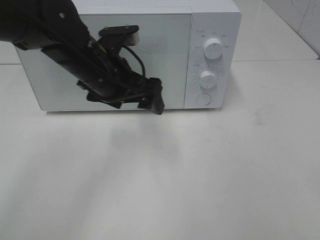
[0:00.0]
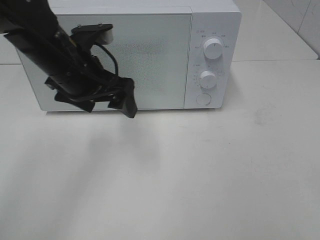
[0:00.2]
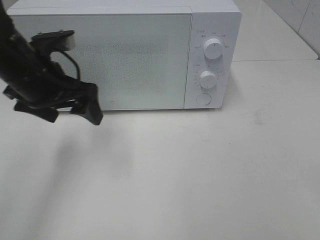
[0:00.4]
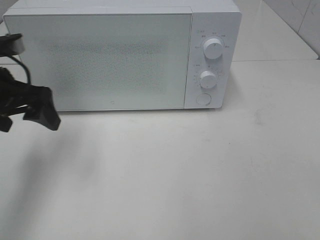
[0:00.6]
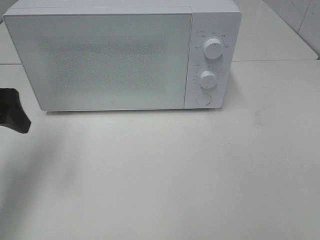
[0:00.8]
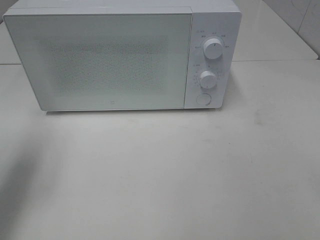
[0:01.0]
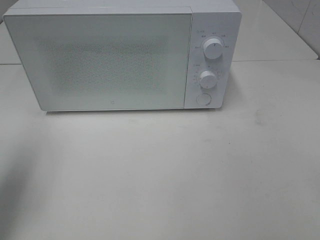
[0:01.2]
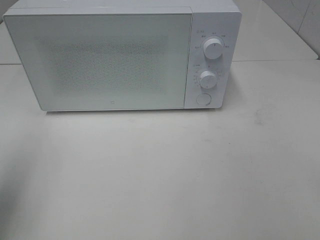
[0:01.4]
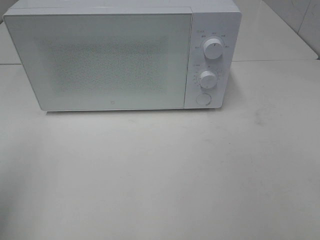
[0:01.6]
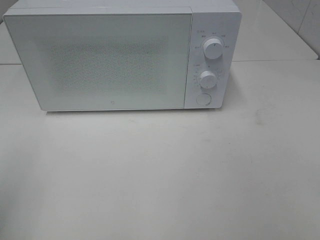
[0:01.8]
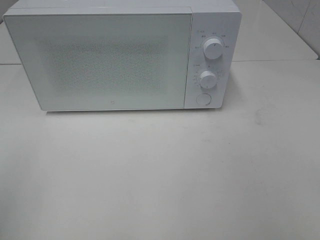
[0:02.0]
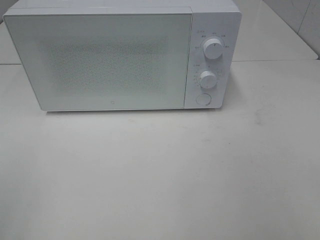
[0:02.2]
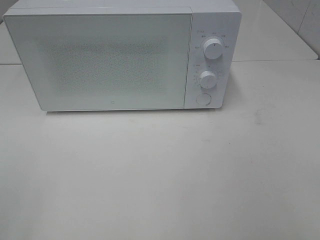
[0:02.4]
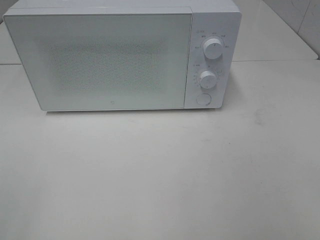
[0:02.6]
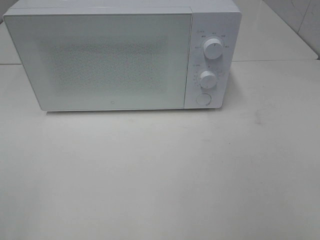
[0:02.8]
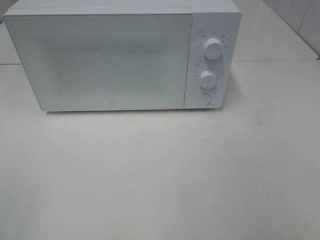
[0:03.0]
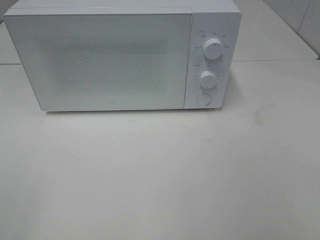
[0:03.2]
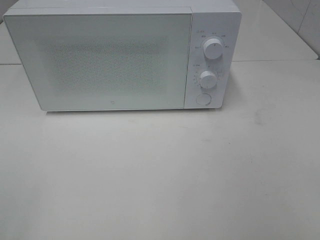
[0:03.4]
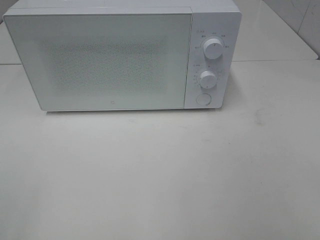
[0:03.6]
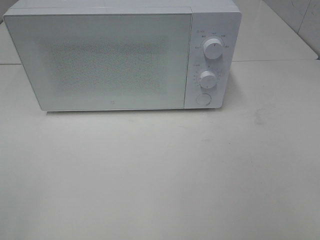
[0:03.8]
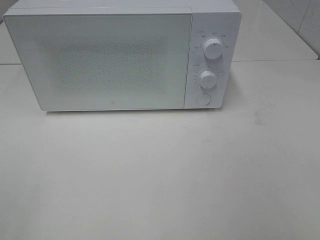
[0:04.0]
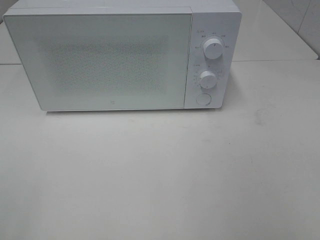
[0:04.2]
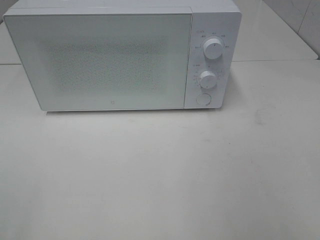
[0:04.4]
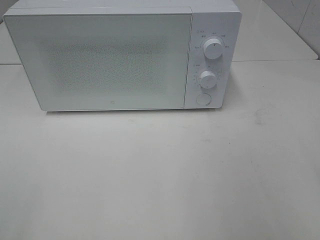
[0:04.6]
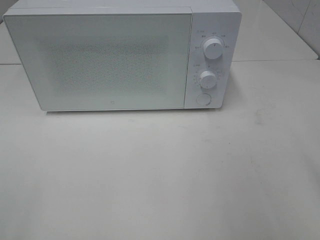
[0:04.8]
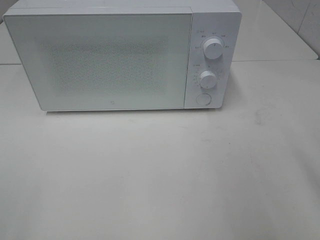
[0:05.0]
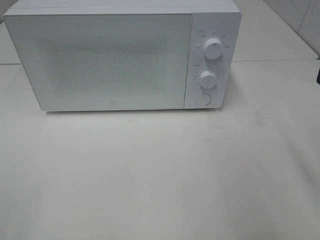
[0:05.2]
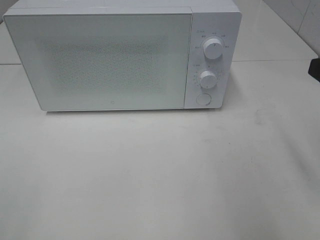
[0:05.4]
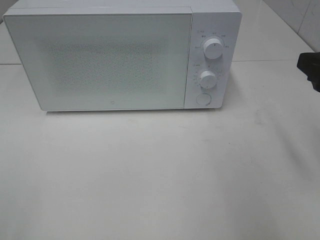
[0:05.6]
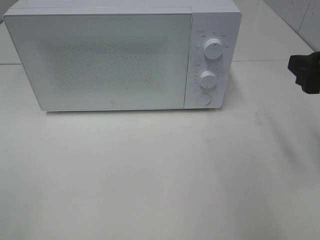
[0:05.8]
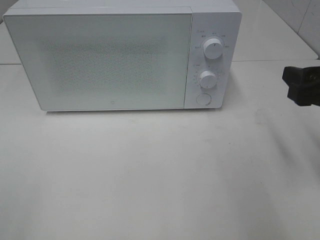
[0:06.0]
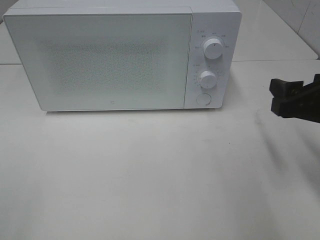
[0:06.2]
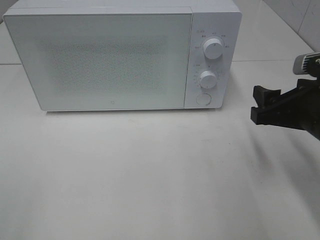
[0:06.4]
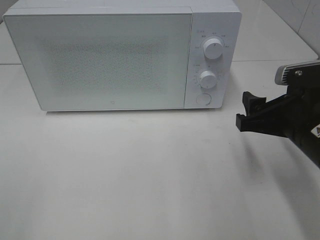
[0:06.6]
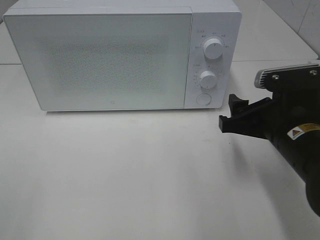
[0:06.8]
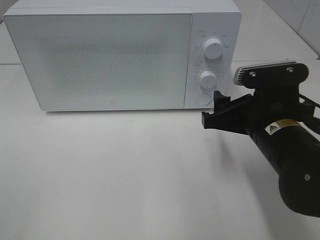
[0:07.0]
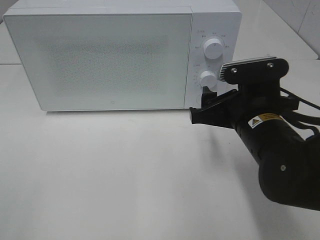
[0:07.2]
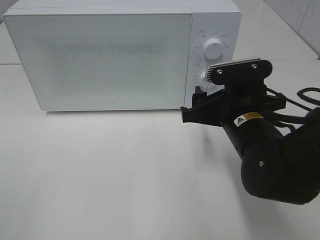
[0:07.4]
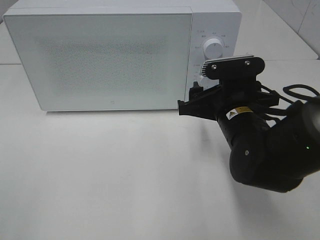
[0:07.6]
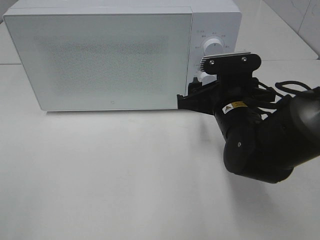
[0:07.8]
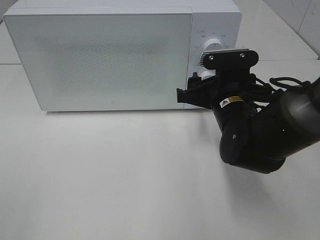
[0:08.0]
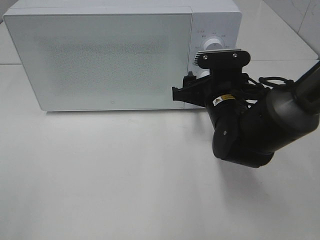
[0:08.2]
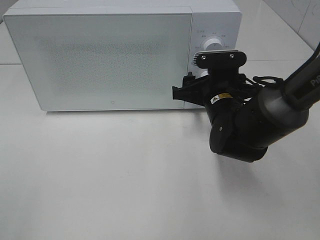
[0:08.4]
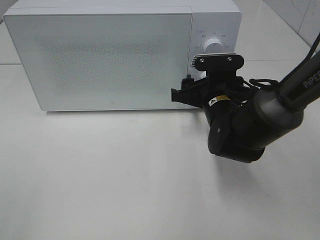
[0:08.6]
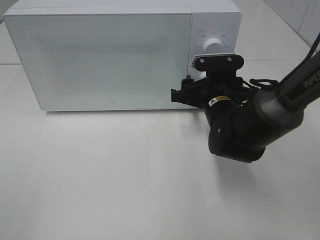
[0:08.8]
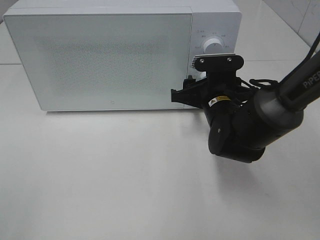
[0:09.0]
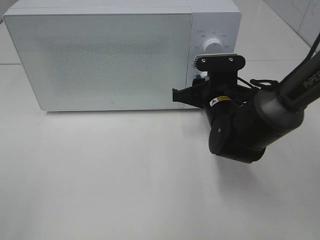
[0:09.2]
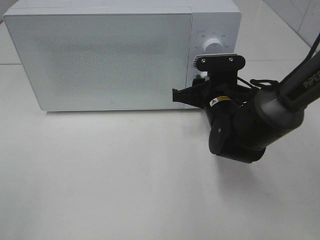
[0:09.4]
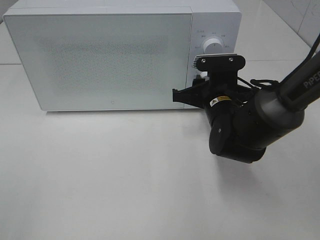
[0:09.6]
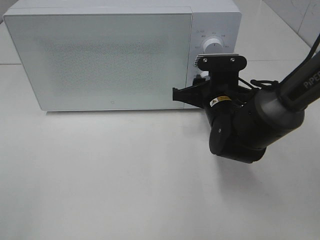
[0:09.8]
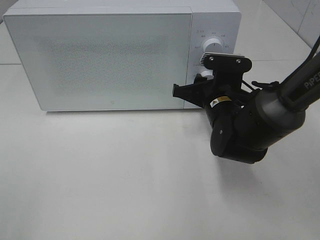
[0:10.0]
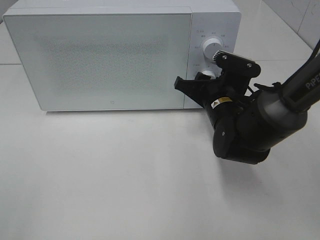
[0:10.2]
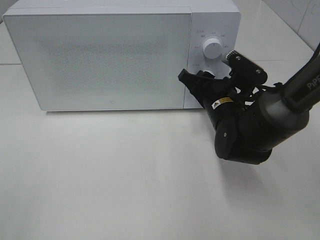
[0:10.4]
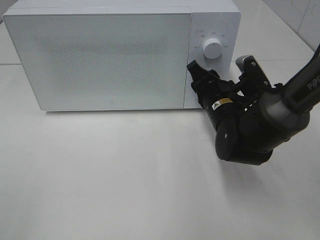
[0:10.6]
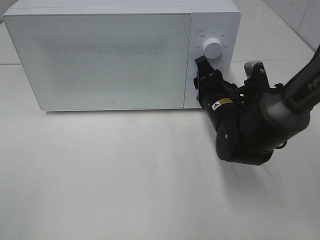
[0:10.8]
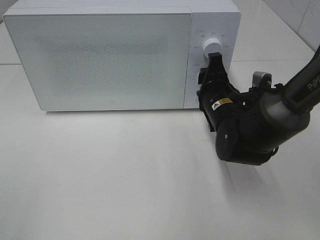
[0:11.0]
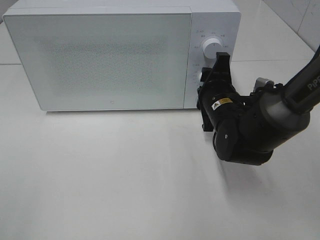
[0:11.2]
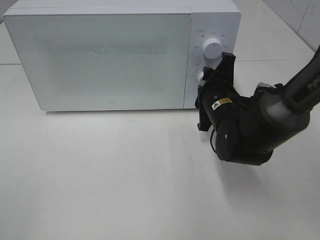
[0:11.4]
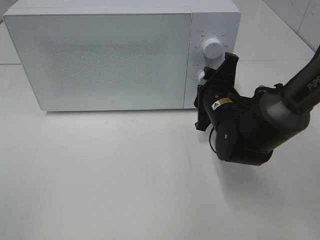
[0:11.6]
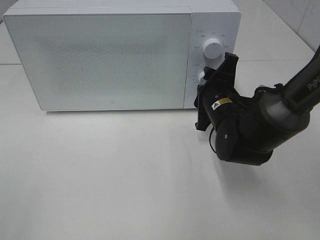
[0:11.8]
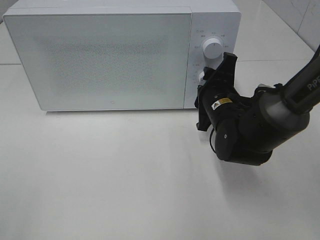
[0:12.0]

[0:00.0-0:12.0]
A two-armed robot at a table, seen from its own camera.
Task of the whole recording: Heat the burger.
0:00.0 to 0:01.6: The left gripper travels to the left and backward by approximately 30 cm.
0:01.6 to 0:03.0: The left gripper goes some 10 cm backward.
0:04.4 to 0:06.0: The right gripper travels forward and downward by approximately 20 cm.
0:06.0 to 0:07.6: The right gripper moves to the left, downward and forward, roughly 15 cm.
0:07.6 to 0:09.0: The right gripper travels forward by about 5 cm.

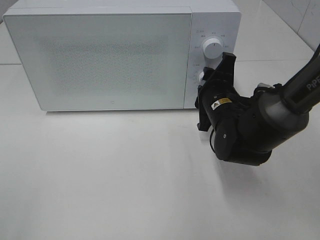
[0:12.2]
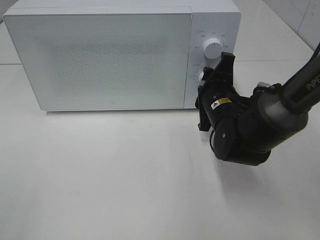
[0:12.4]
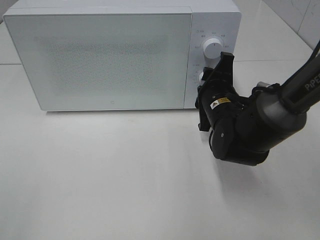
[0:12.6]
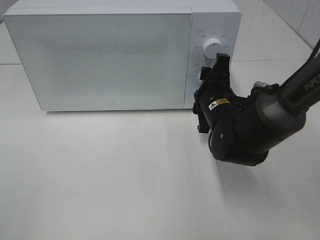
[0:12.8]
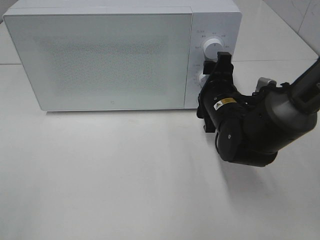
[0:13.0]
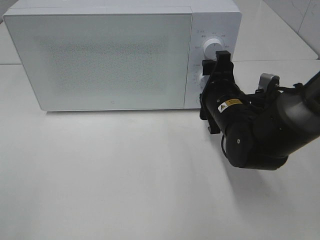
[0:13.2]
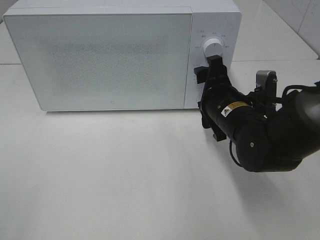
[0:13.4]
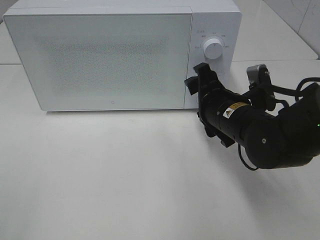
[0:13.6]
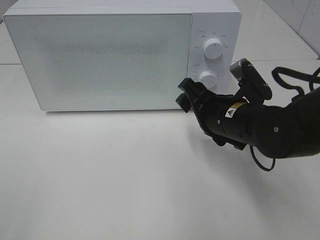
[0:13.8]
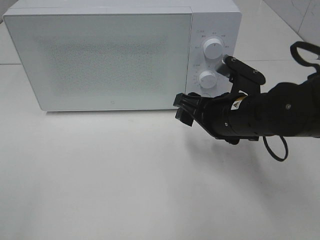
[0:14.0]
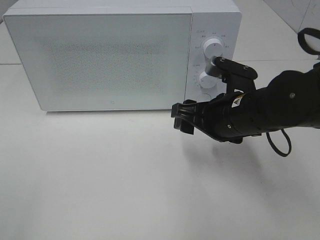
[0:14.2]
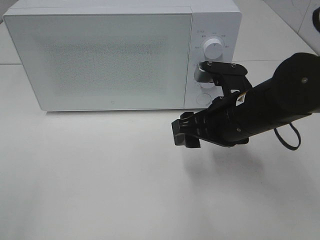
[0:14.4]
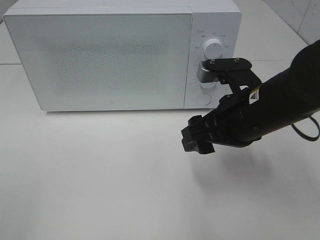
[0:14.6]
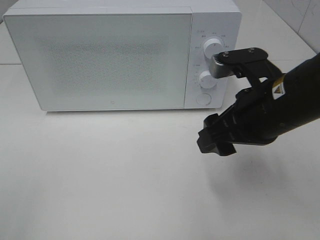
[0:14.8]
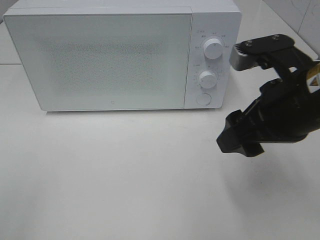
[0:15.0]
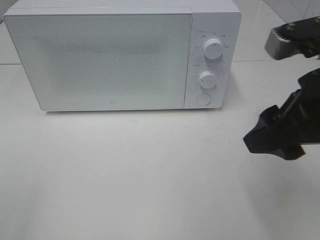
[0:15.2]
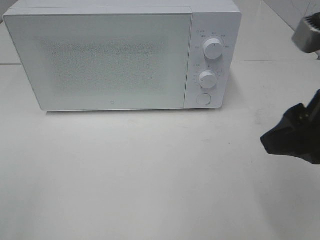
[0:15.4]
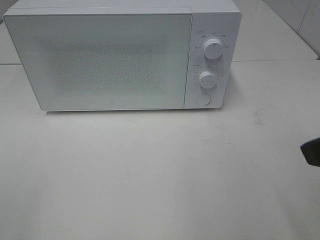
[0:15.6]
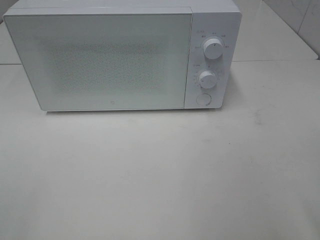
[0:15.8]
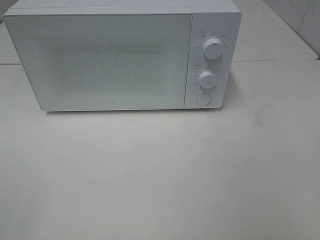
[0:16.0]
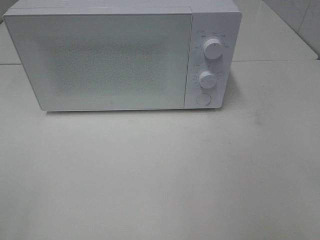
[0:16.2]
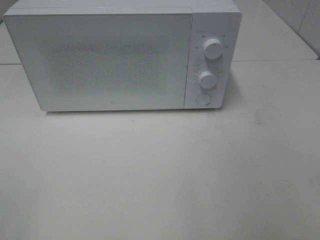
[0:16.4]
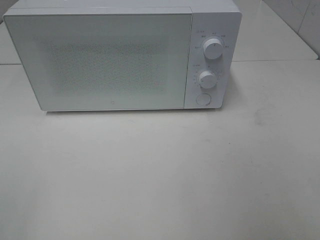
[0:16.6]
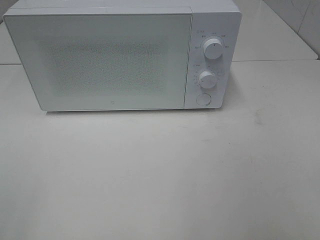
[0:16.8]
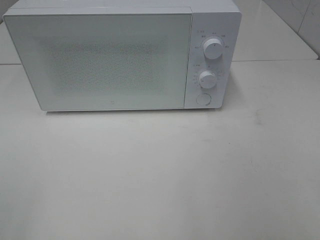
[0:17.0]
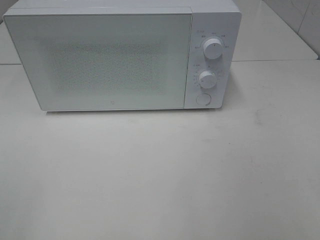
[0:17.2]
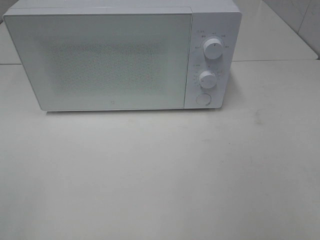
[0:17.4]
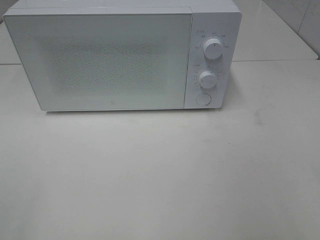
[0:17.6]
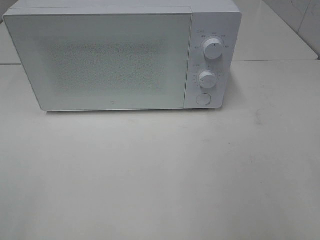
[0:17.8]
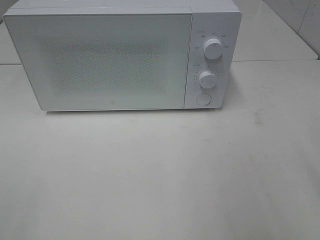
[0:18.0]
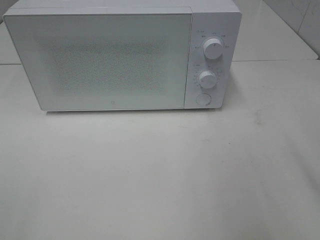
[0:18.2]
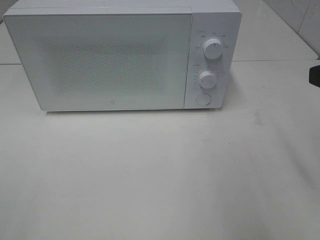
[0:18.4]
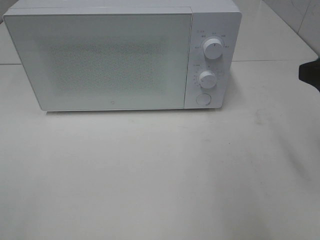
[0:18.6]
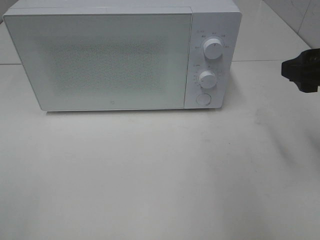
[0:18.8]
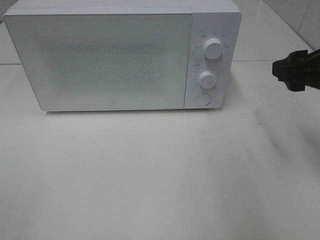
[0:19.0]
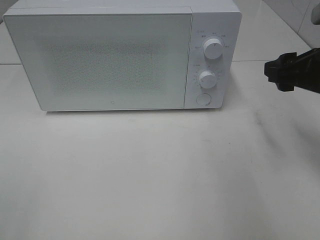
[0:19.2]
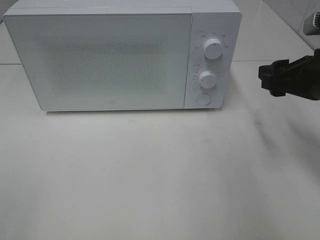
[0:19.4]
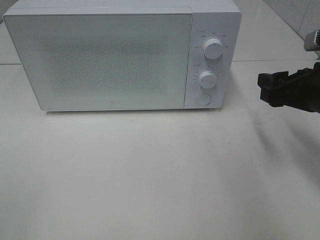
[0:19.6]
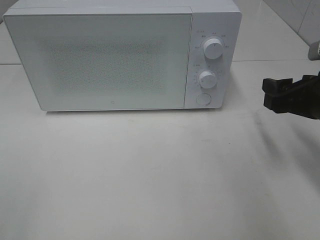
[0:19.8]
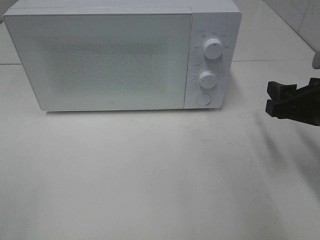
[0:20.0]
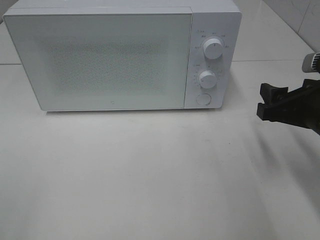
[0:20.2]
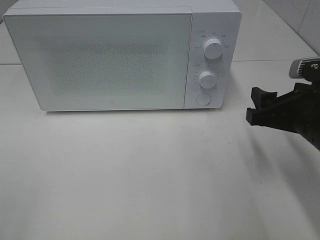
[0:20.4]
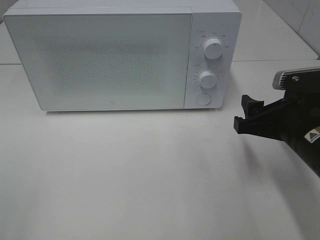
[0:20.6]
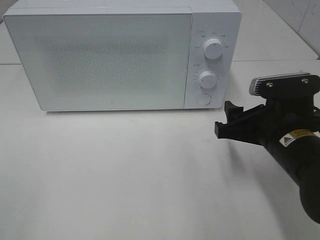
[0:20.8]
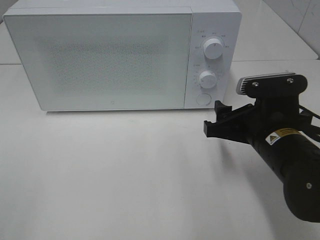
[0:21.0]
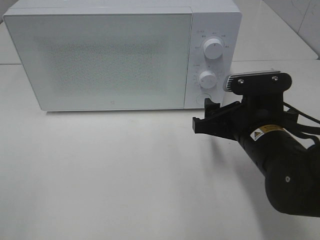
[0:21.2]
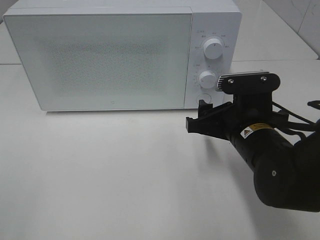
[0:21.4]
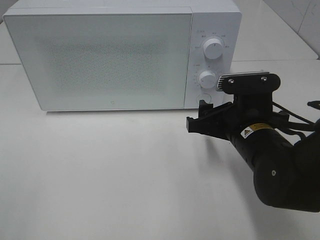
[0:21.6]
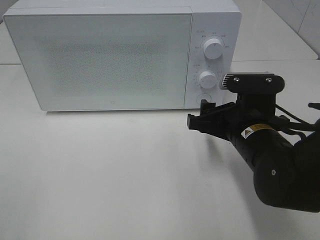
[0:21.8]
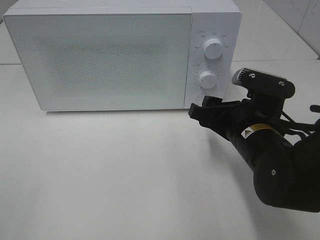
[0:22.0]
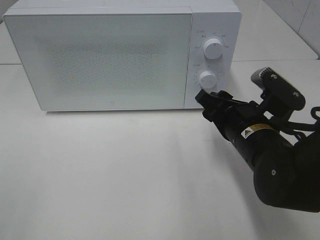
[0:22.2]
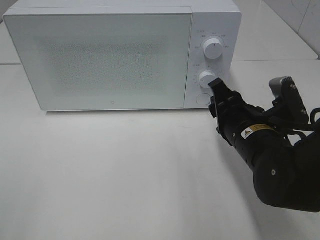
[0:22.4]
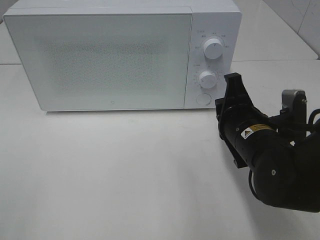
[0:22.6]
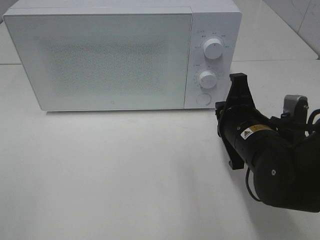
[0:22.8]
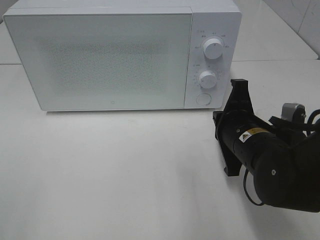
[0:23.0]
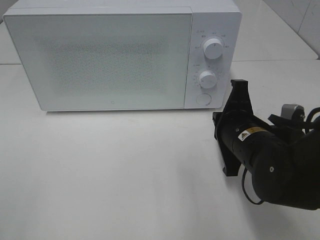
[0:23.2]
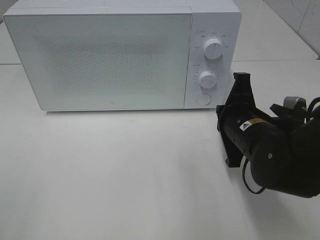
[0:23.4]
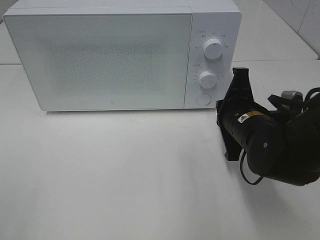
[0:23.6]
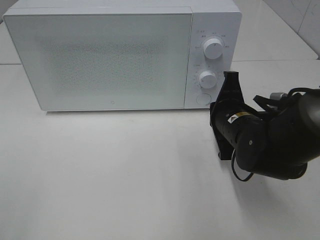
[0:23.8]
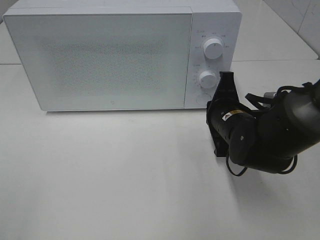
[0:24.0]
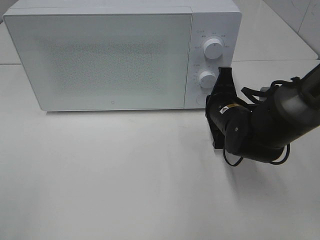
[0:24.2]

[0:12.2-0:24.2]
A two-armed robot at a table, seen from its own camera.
Task of the whole recording: Heat the burger.
0:12.2 to 0:13.8: The right gripper heads backward, covering roughly 5 cm, and opens.
0:13.8 to 0:15.2: The right gripper shifts some 20 cm upward, backward and to the right.
0:15.2 to 0:16.6: The right gripper heads backward and to the right, covering approximately 20 cm.
0:18.2 to 0:19.8: The right gripper goes approximately 15 cm downward and forward.
0:19.8 to 0:21.2: The right gripper heads to the left, covering roughly 10 cm.
0:21.2 to 0:22.6: The right gripper closes its fingers.
0:22.6 to 0:24.2: The right gripper shifts approximately 10 cm forward.
